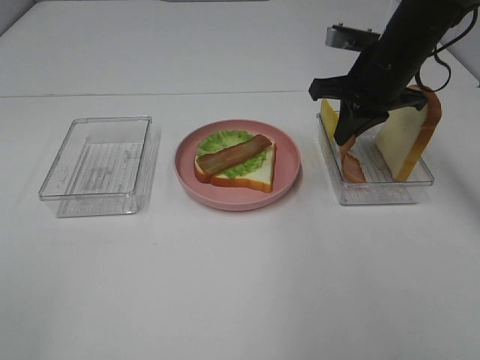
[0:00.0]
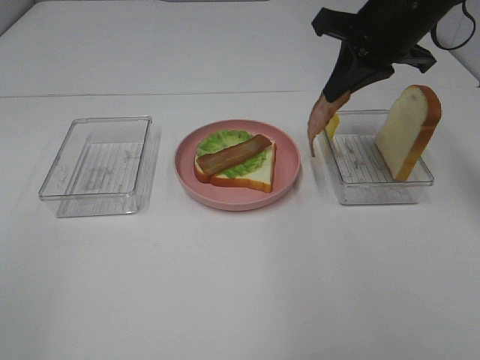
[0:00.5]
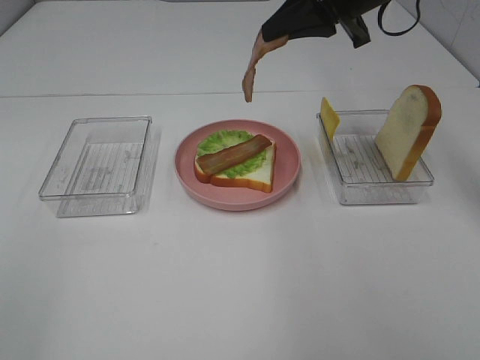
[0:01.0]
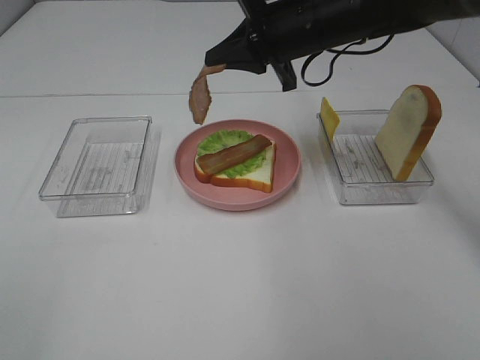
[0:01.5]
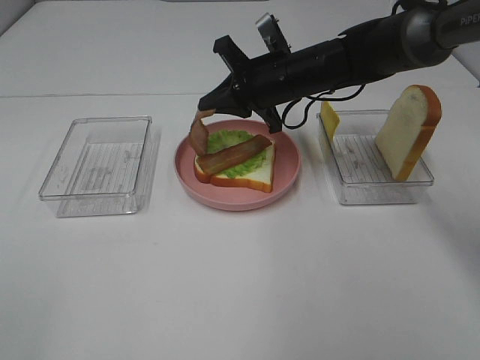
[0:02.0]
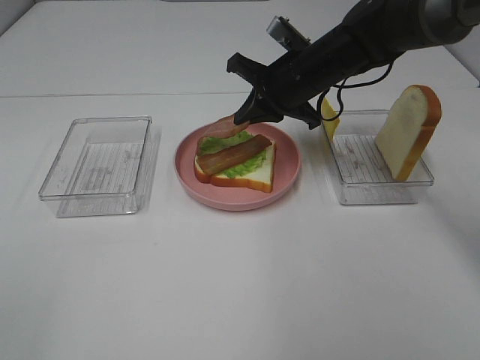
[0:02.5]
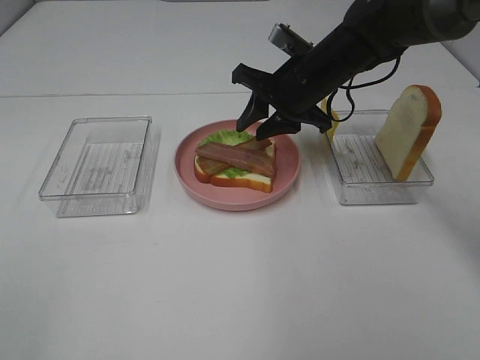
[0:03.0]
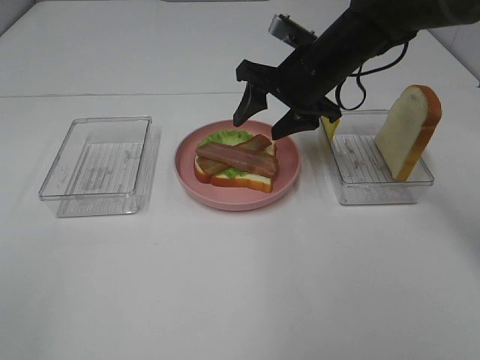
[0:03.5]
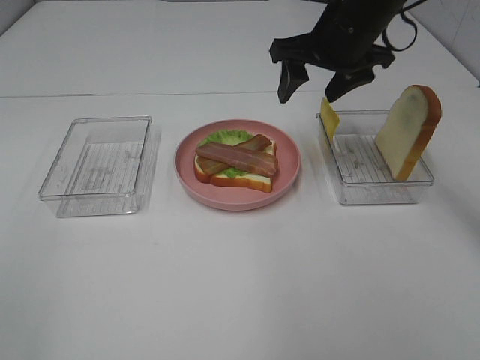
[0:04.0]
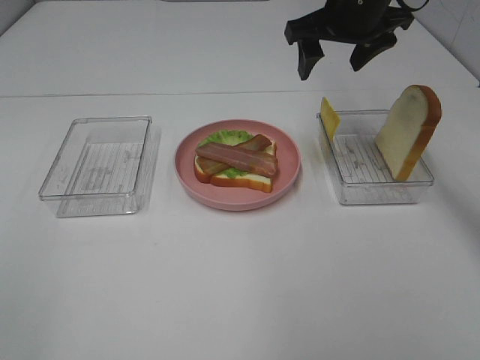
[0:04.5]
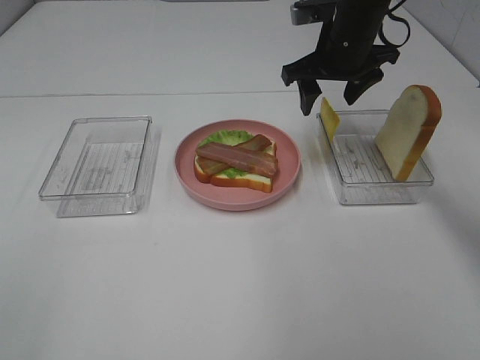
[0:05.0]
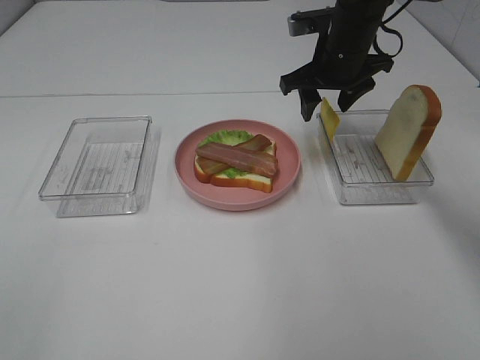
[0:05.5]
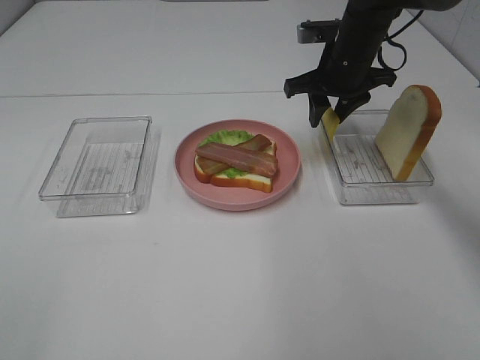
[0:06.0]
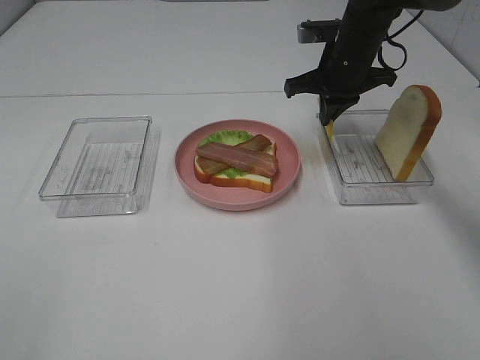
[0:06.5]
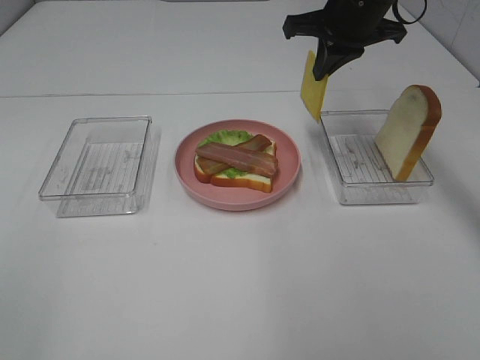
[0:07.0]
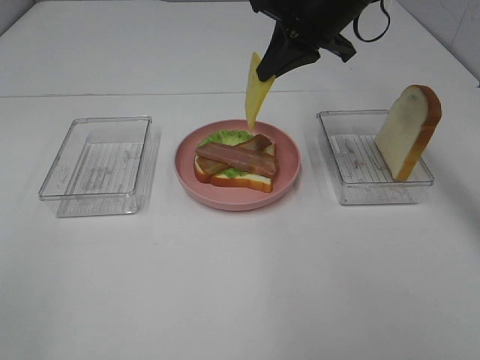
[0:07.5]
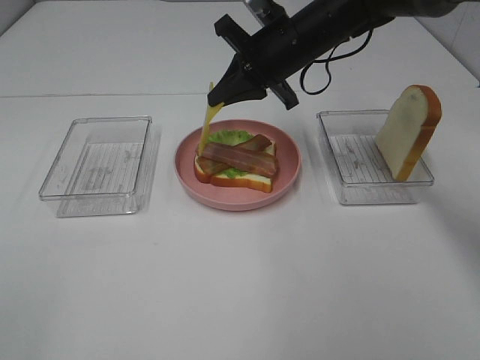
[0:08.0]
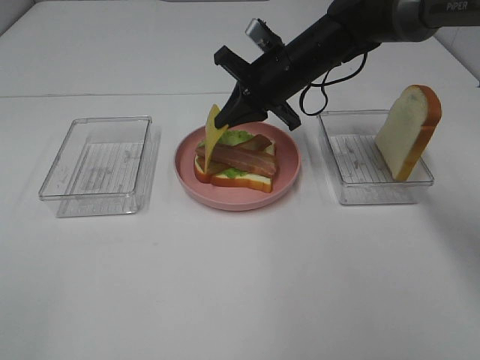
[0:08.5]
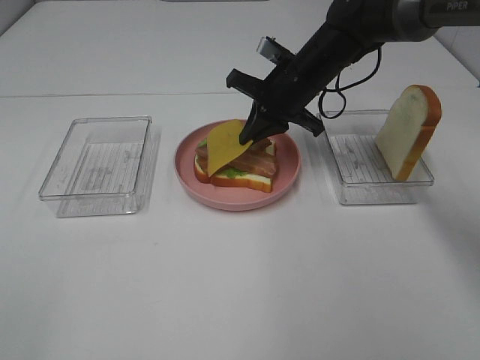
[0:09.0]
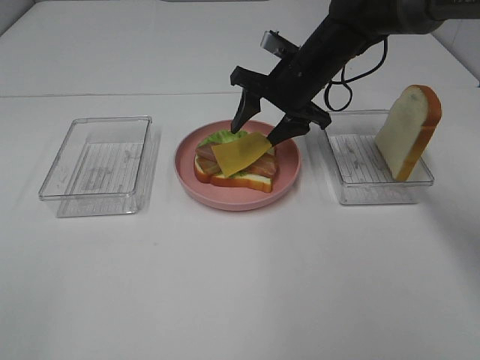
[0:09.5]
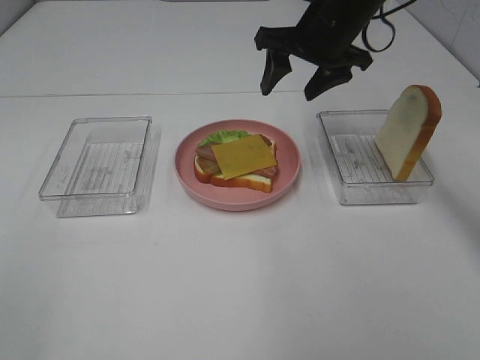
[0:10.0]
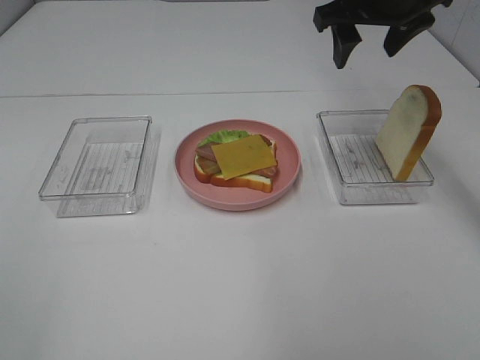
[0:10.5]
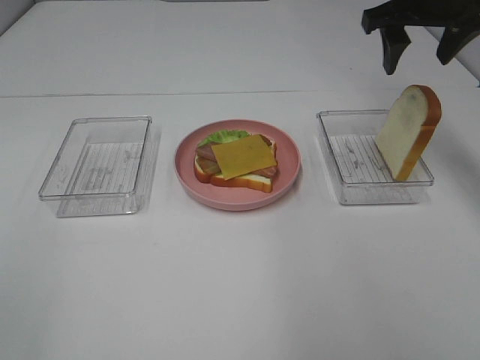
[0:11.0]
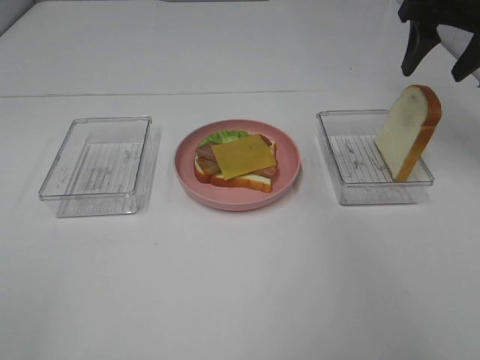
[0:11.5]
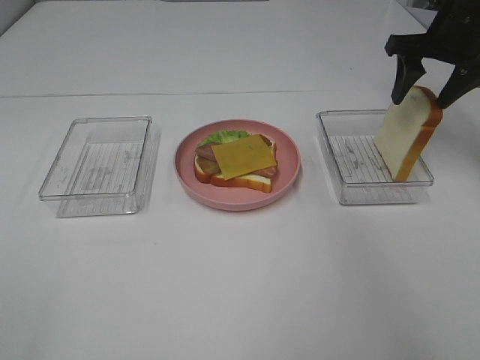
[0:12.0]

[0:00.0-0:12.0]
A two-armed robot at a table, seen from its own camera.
Task of the whole recording: Make sandwiches.
Step, 0:00.0 to 0:03.0: Right hand:place bacon on bacon.
Step, 0:03.5 to 0:06.5: Right hand:grab the cheese slice.
Step, 0:07.0 to 0:10.0: Right hand:place the cheese slice on top of the bacon.
0:00.0 to 0:02.0: The right gripper heads to the left, covering approximately 10 cm, and moves roughly 10 cm upward and comes back.
0:02.0 to 0:04.0: The right gripper goes about 10 cm upward and to the right, and opens.
0:04.0 to 0:06.0: The right gripper is displaced downward and forward by approximately 10 cm, and closes.
0:06.0 to 0:08.0: The right gripper goes about 5 cm to the left, travels upward and back again, roughly 10 cm each way, and closes.
0:08.0 to 0:10.0: The right gripper changes place by some 5 cm, and opens up.
0:10.0 to 0:12.0: The right gripper goes some 15 cm to the right.

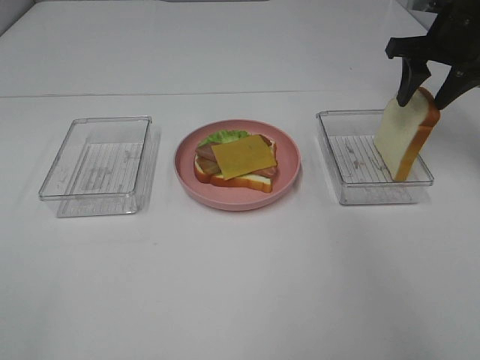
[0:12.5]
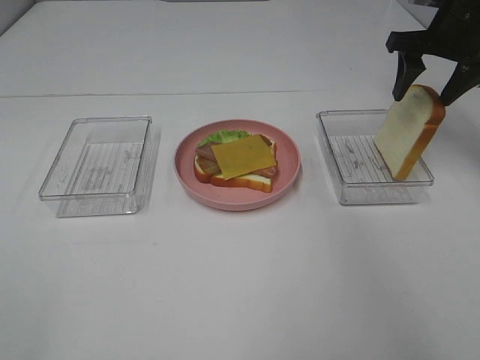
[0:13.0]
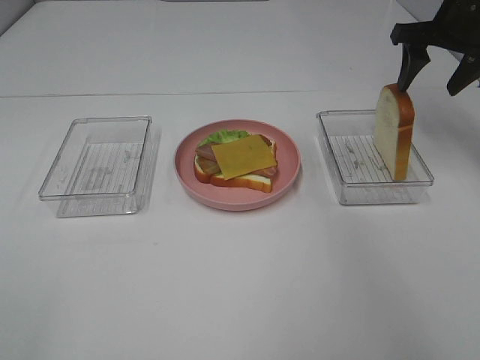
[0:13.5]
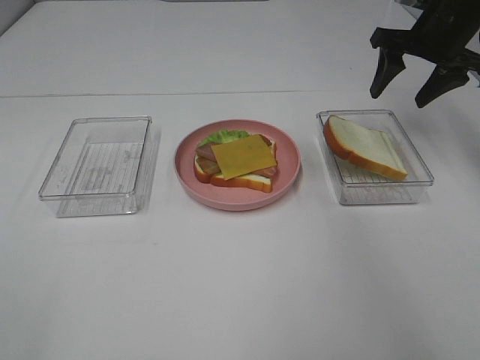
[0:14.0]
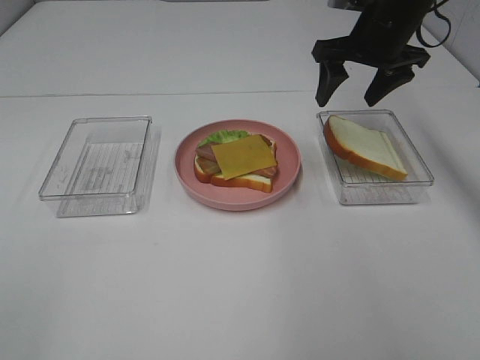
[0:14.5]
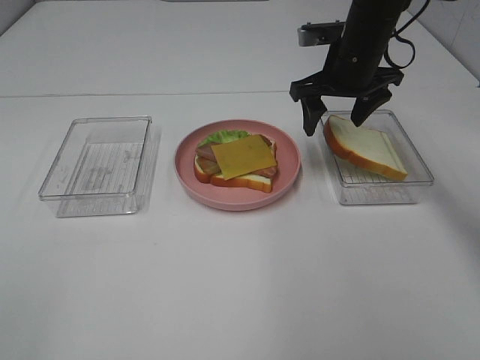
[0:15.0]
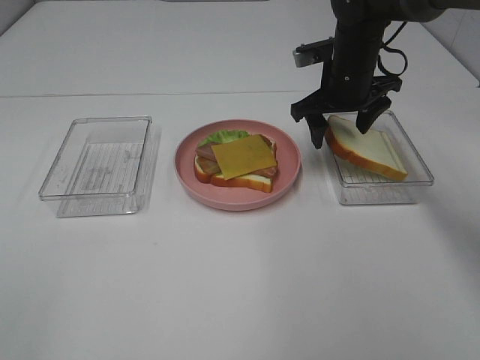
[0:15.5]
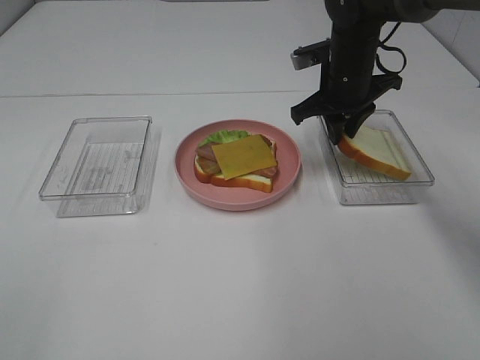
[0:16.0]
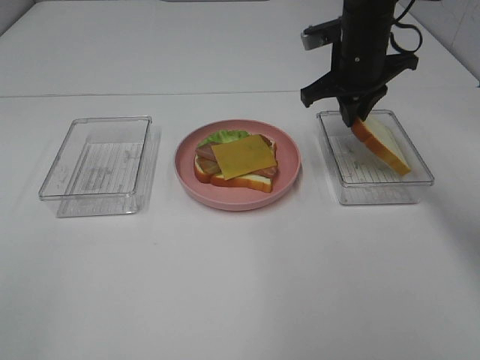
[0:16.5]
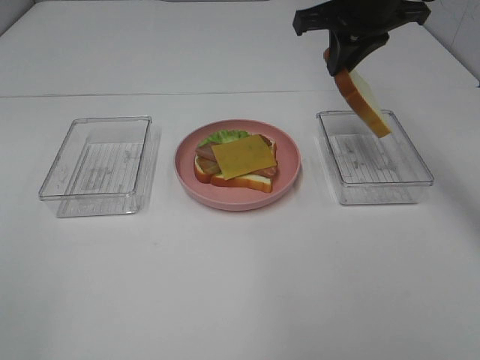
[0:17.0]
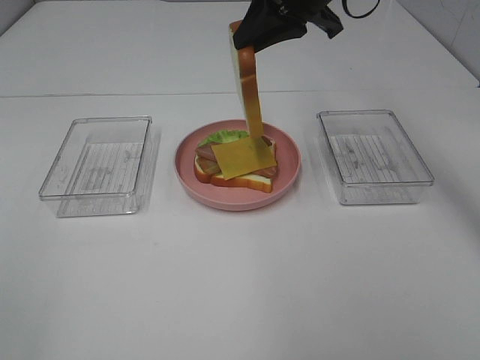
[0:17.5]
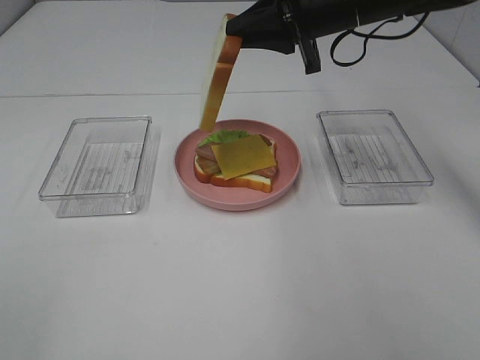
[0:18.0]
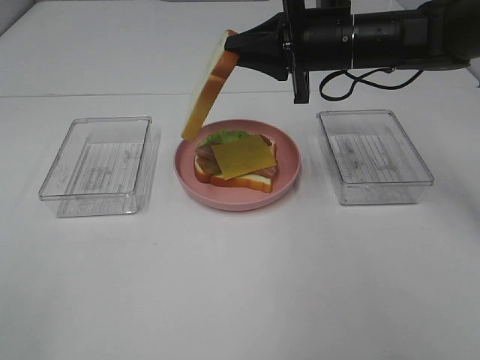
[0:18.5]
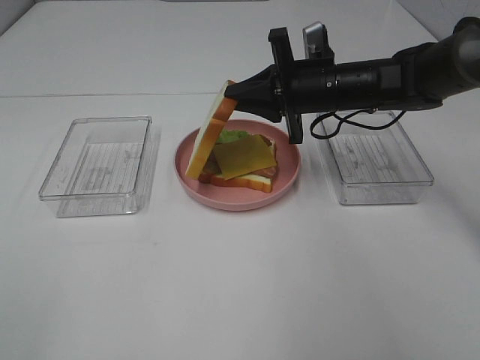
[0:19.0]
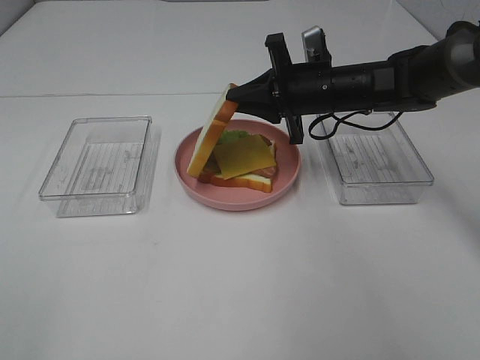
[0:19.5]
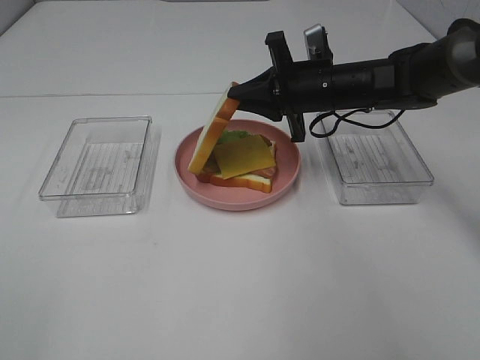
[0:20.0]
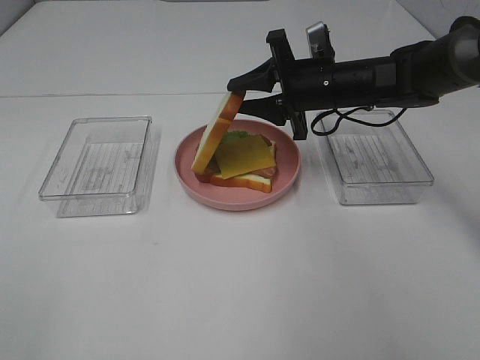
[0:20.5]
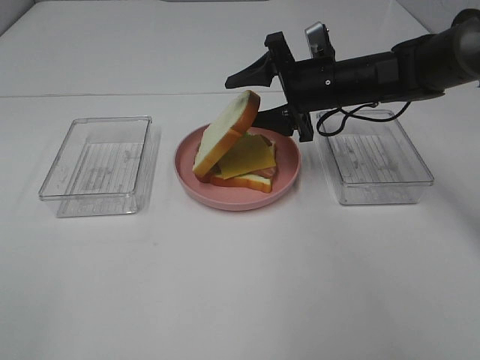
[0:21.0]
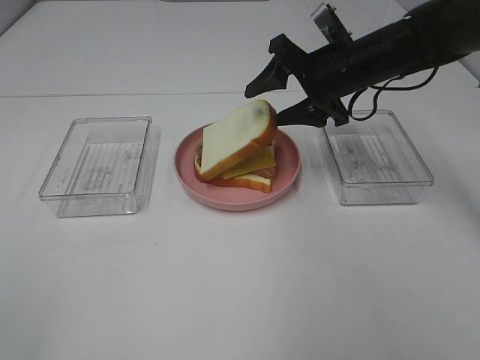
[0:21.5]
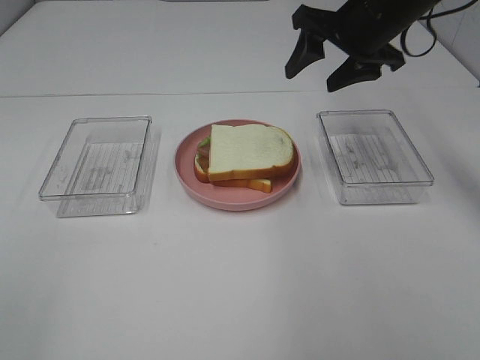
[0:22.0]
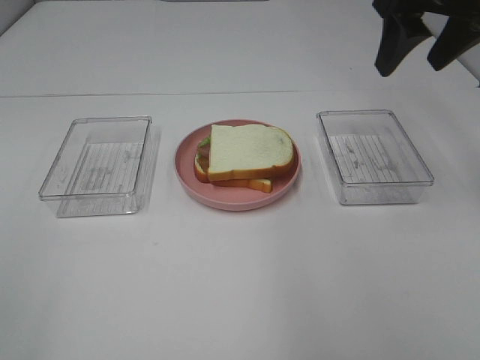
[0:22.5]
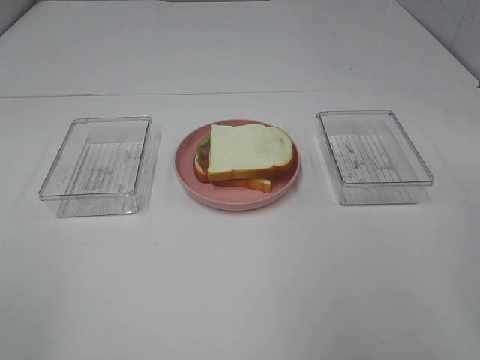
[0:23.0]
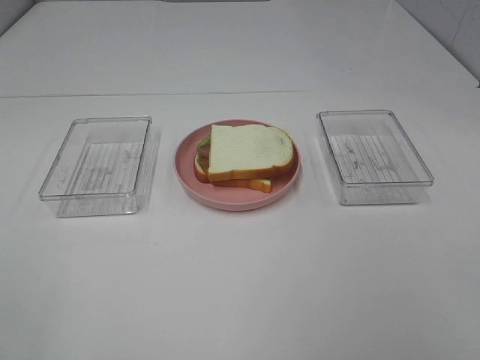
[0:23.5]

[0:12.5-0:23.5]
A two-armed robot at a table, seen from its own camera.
Task of the whole recording: Make sandwiches.
Step, 0:12.5 to 0:16.0: Right hand:grab the bread slice.
Step, 0:16.5 to 0:22.0: Right hand:place the bread slice on the cheese slice.
0:12.5 to 0:14.5: The right gripper travels to the left by about 10 cm.
0:14.5 to 0:16.0: The right gripper travels downward by some 5 cm, and closes.
0:16.0 to 0:18.0: The right gripper shifts approximately 10 cm upward.
0:18.0 to 0:20.0: The right gripper goes roughly 10 cm downward.
0:20.0 to 0:21.5: The right gripper opens.
0:21.5 to 0:23.5: The right gripper heads backward, covering some 40 cm.

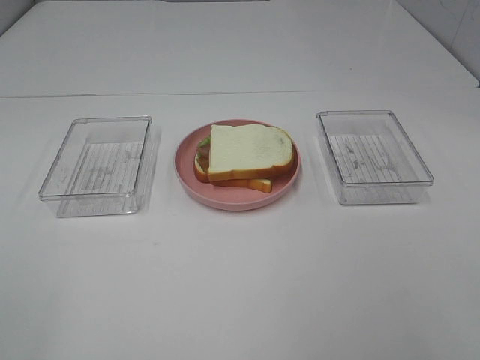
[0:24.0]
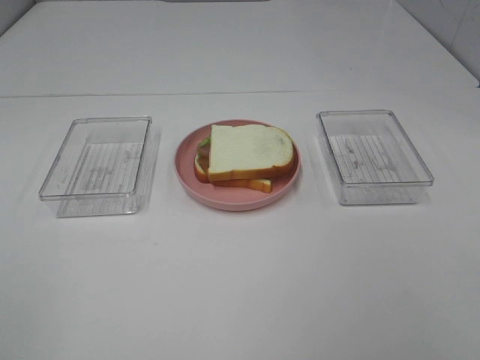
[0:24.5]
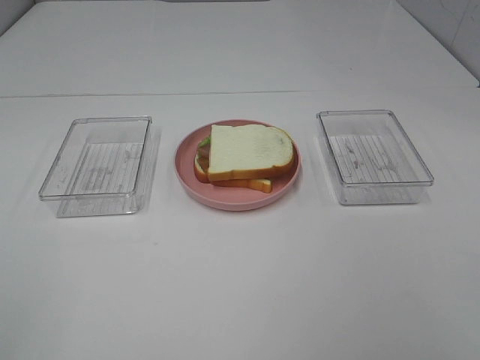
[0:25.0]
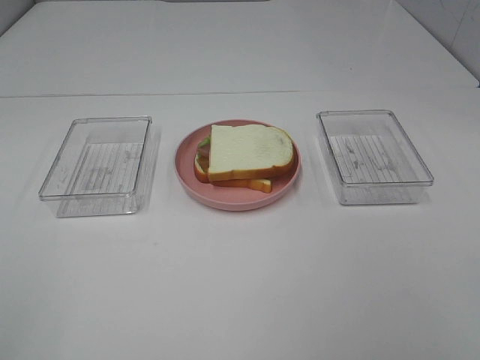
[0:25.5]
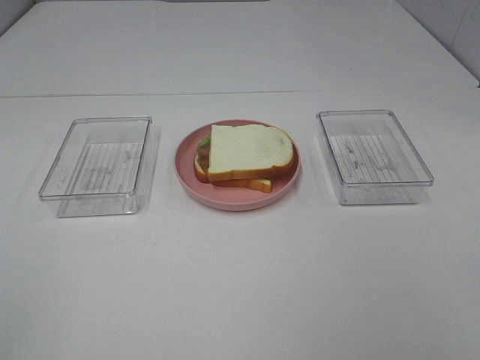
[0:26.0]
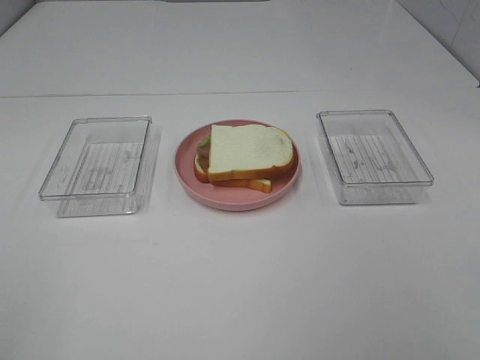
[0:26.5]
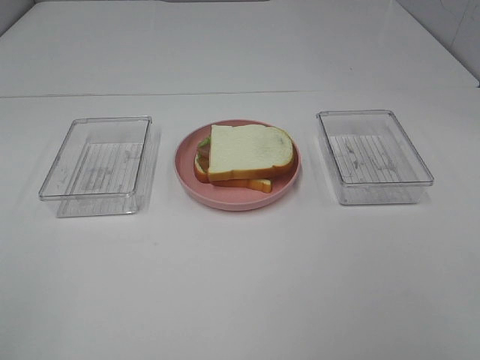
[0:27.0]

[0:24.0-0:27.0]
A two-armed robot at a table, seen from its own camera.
Task of the whole recording: Make sandwiches.
0:25.5 to 0:27.0: The two grippers keep their place.
